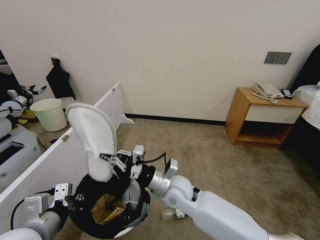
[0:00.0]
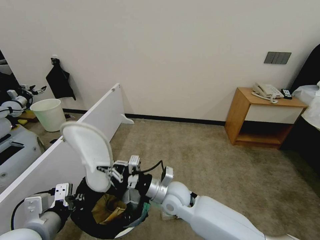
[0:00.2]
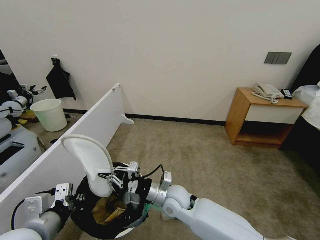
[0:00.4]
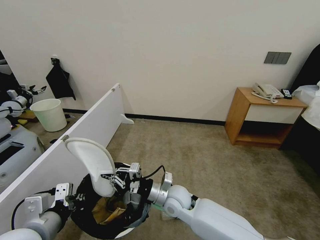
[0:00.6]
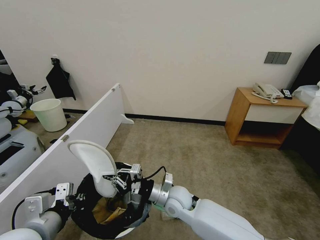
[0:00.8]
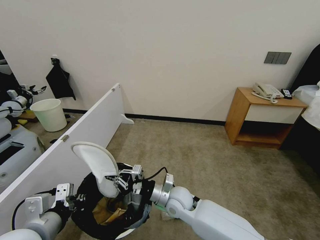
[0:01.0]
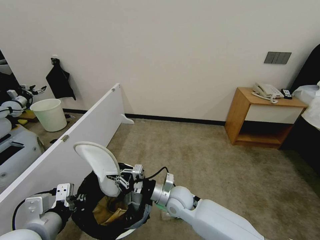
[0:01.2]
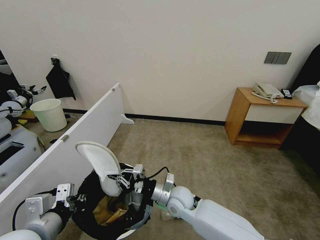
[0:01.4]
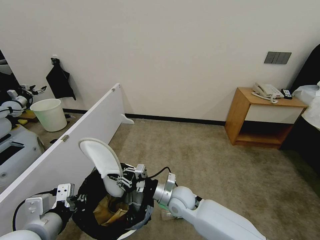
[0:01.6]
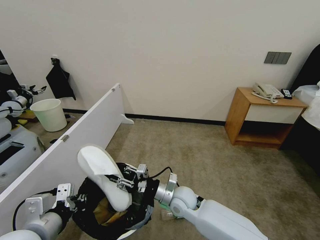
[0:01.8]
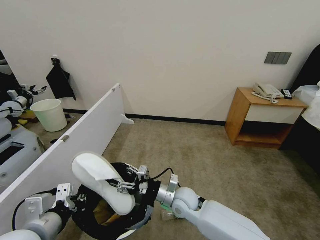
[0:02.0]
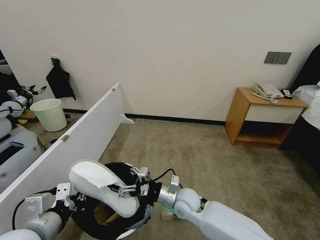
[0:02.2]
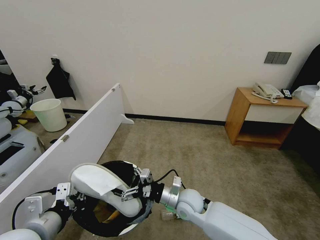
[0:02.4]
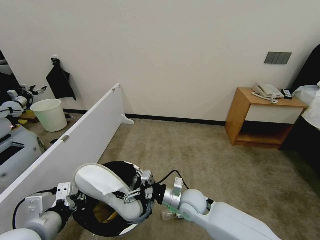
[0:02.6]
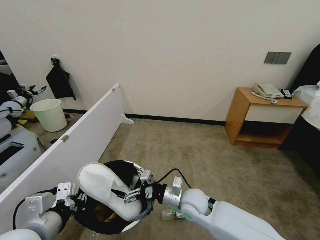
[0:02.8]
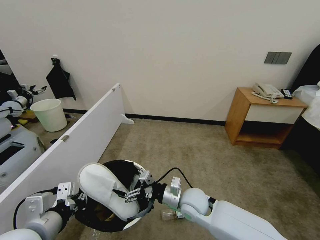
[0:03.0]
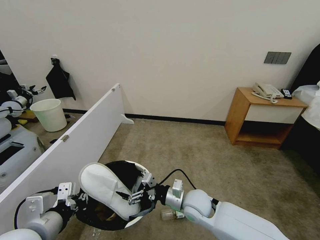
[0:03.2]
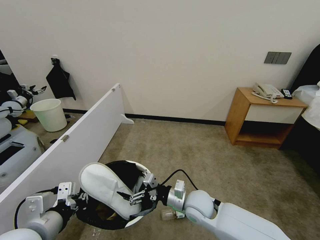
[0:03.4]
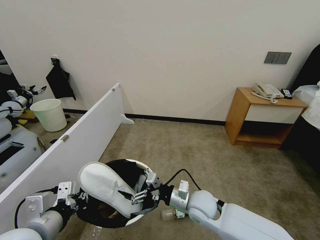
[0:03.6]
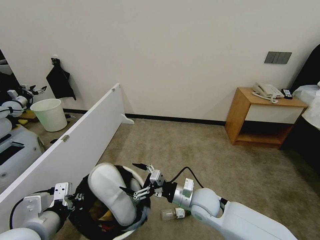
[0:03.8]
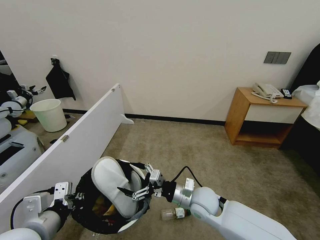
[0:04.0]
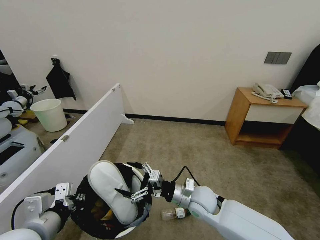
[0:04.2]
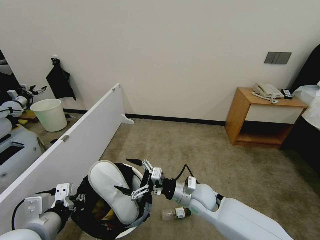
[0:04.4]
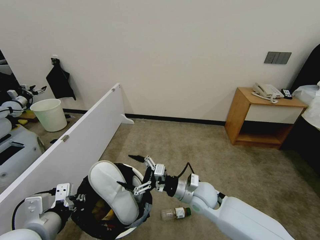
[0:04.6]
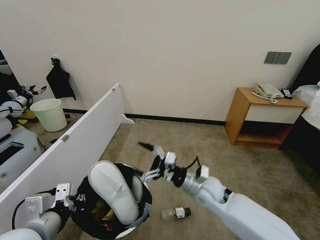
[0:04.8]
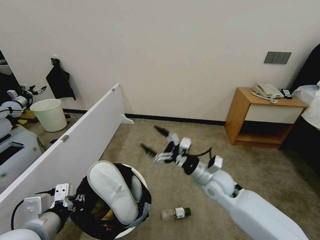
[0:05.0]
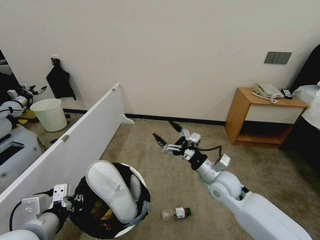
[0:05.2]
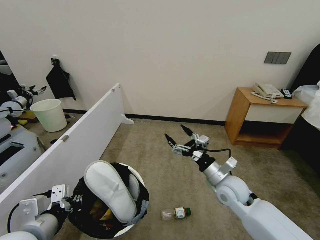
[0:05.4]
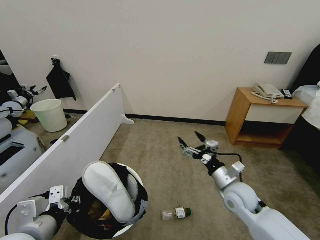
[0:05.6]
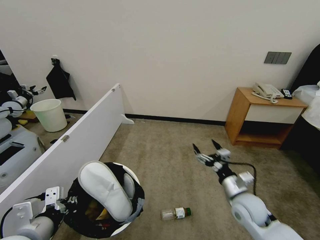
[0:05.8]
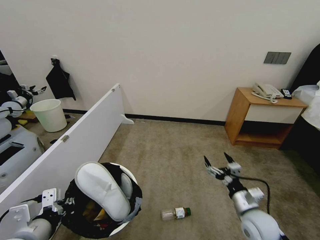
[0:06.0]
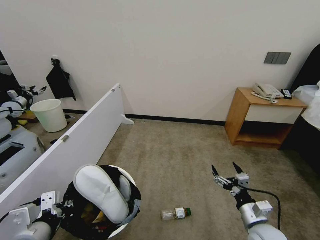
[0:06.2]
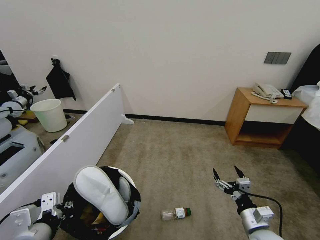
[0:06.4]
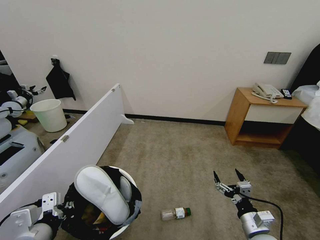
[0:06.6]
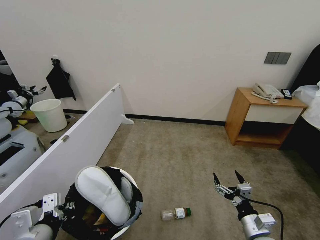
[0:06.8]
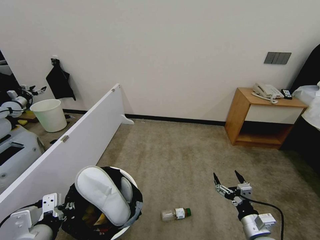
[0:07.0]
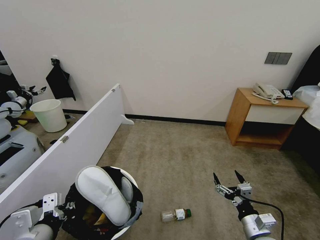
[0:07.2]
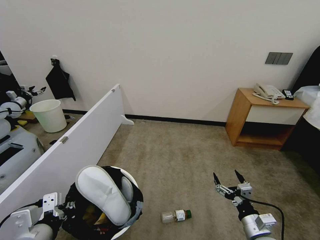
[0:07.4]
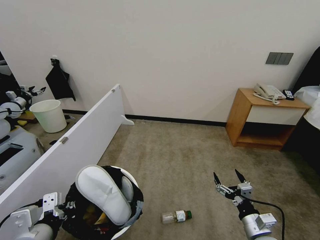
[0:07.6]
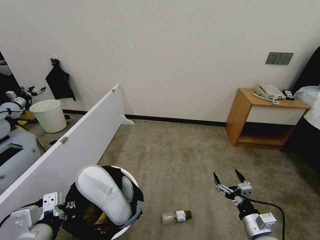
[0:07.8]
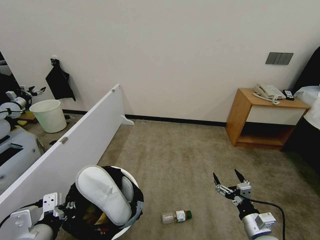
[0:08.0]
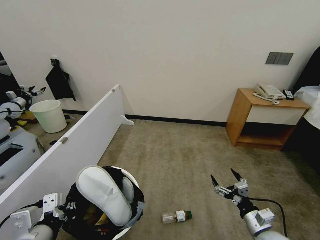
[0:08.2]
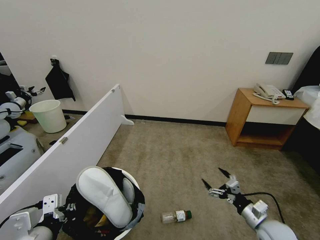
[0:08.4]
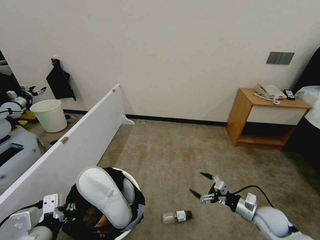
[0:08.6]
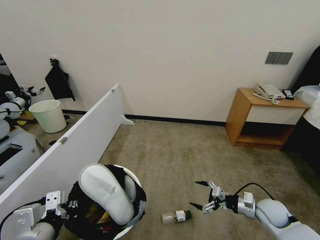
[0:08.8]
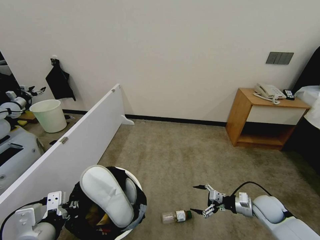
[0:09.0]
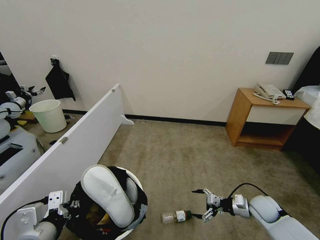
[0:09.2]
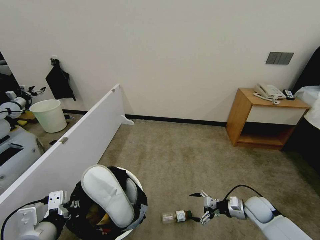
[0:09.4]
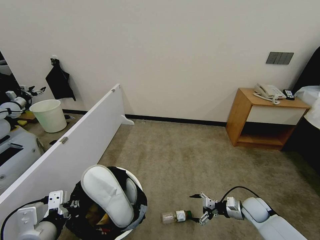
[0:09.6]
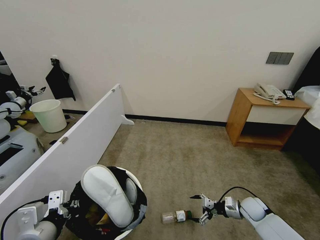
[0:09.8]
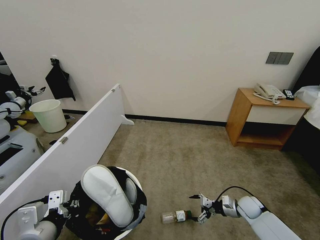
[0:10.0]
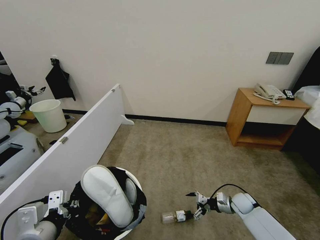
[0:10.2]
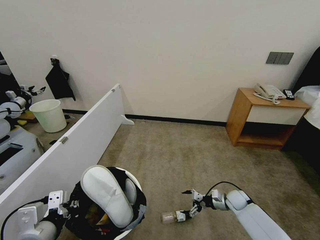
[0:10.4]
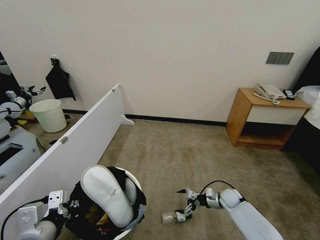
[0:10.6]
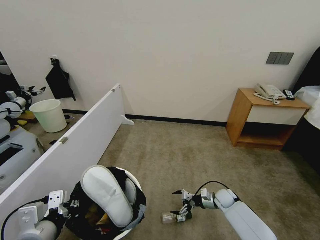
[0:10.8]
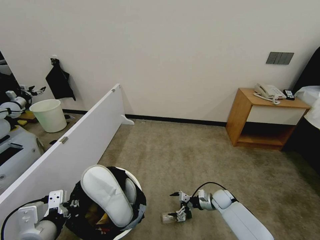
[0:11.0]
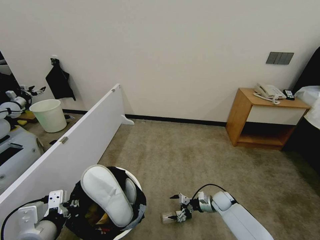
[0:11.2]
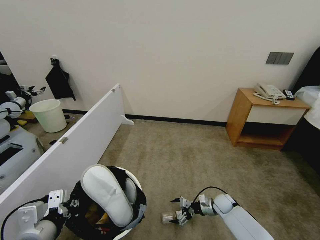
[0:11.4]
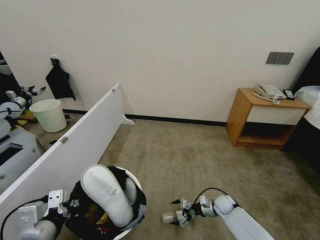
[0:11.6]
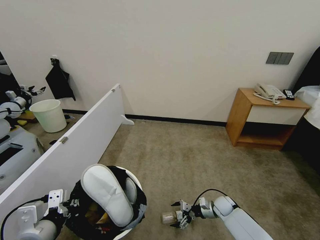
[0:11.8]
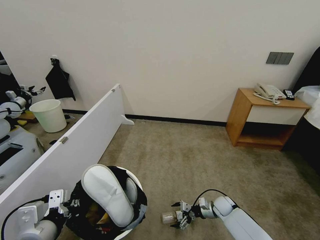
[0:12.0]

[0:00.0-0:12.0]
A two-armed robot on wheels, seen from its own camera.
Task of the whole recording: Pick up the trash bin, then pick up the garbage from the floor and place it into the trash bin.
0:00.0 to 0:01.6: The right gripper heads downward, covering about 10 cm.
0:01.6 to 0:03.0: The right gripper opens up.
0:04.4 to 0:06.0: The right gripper is displaced to the right and backward by approximately 20 cm.
0:06.0 to 0:07.6: The right gripper moves backward, roughly 5 cm.
0:07.6 to 0:09.0: The right gripper moves forward and to the right, roughly 15 cm.
0:09.0 to 0:10.4: The right gripper is displaced downward and forward by some 10 cm.
0:10.4 to 0:12.0: The right gripper heads to the left, covering some 5 cm.

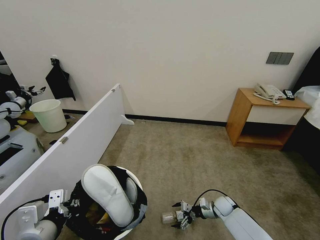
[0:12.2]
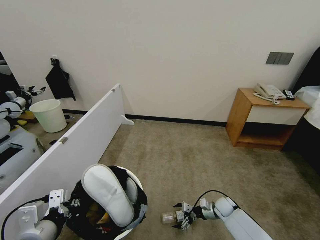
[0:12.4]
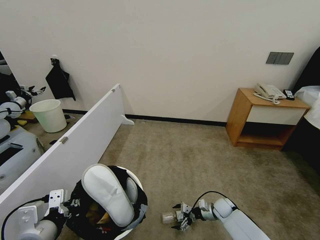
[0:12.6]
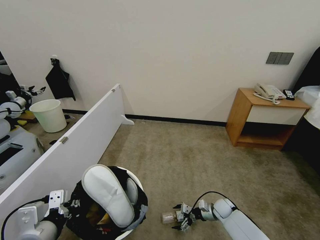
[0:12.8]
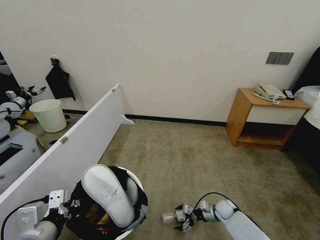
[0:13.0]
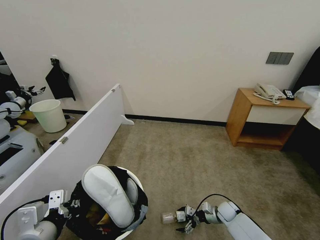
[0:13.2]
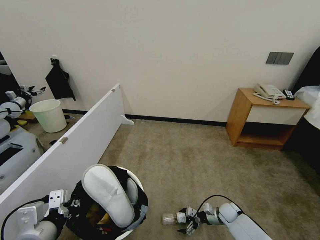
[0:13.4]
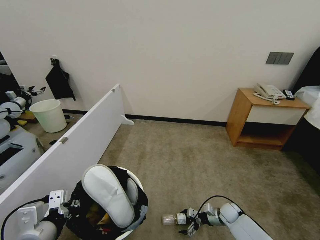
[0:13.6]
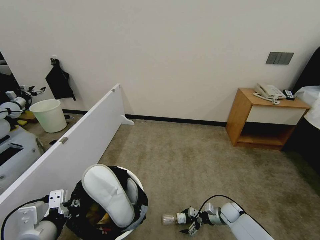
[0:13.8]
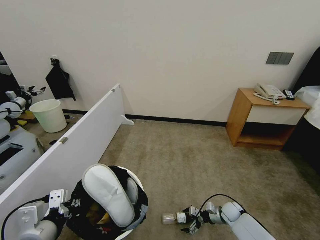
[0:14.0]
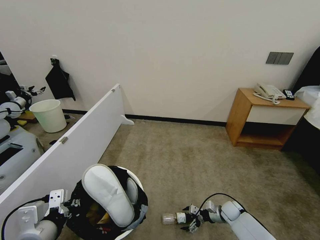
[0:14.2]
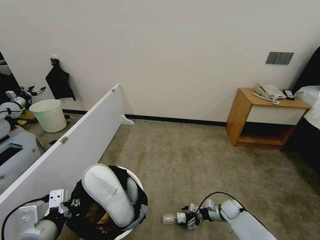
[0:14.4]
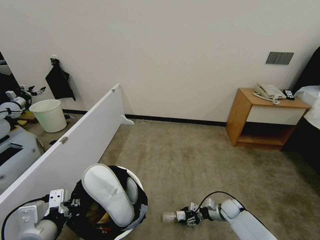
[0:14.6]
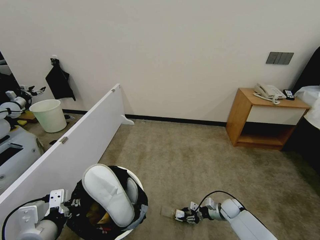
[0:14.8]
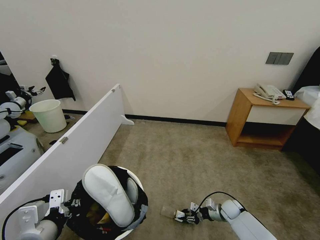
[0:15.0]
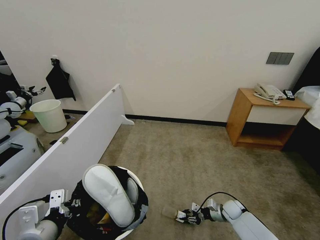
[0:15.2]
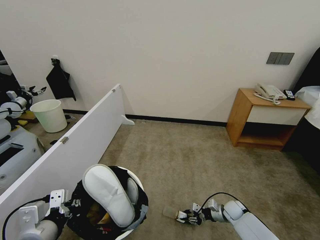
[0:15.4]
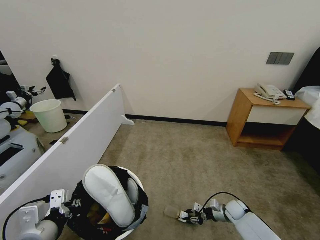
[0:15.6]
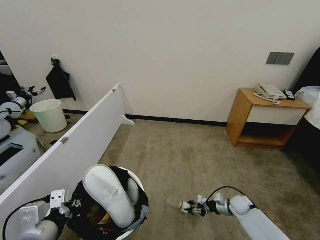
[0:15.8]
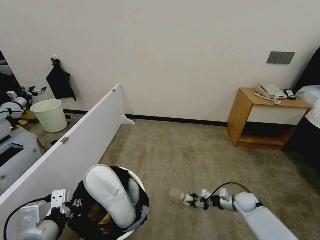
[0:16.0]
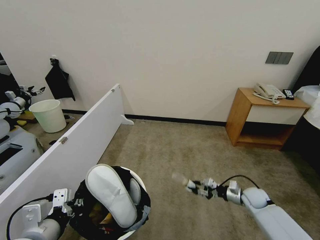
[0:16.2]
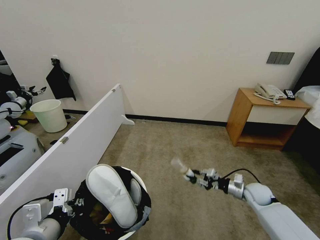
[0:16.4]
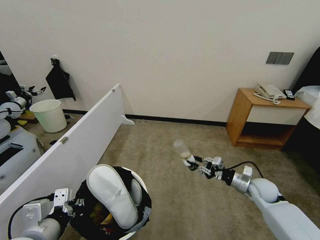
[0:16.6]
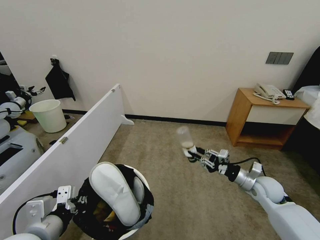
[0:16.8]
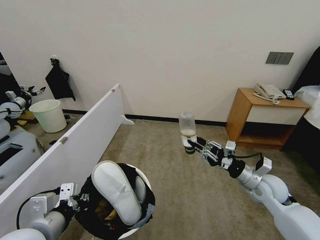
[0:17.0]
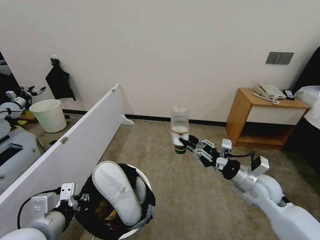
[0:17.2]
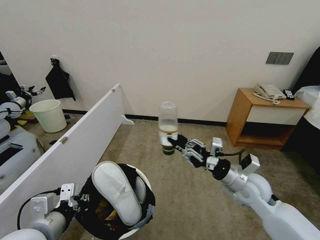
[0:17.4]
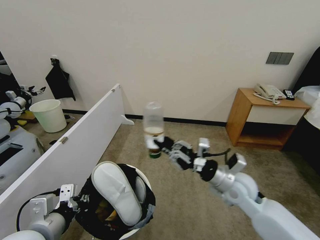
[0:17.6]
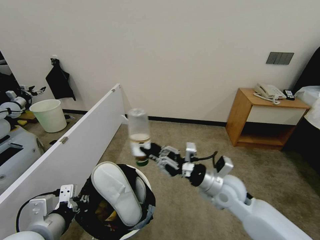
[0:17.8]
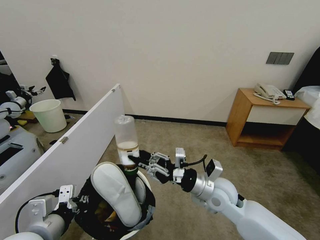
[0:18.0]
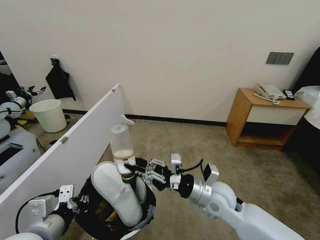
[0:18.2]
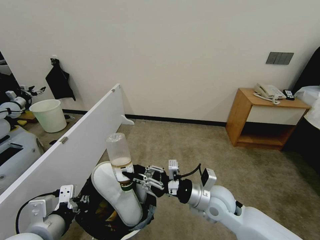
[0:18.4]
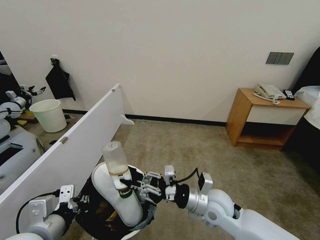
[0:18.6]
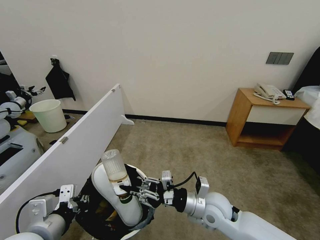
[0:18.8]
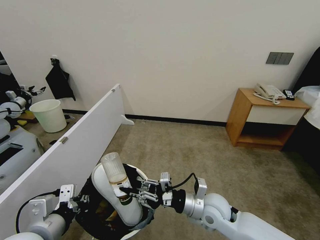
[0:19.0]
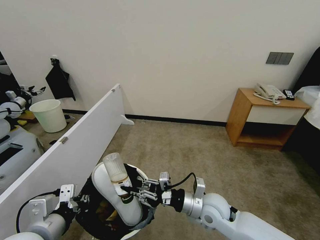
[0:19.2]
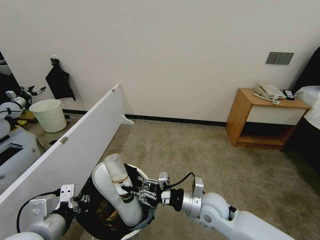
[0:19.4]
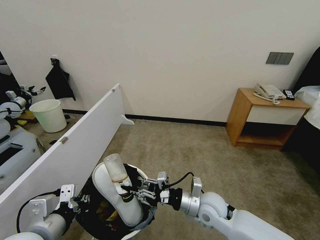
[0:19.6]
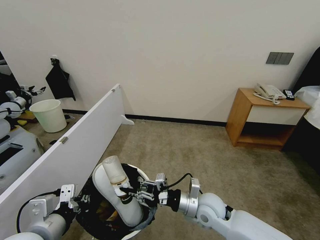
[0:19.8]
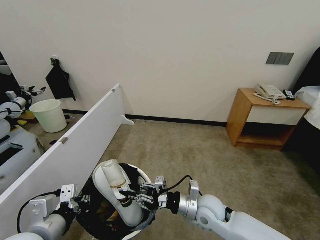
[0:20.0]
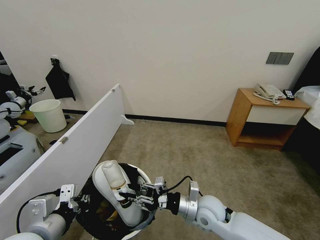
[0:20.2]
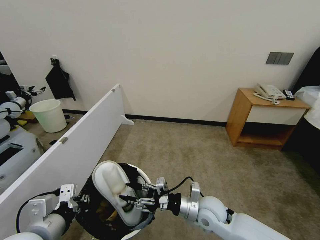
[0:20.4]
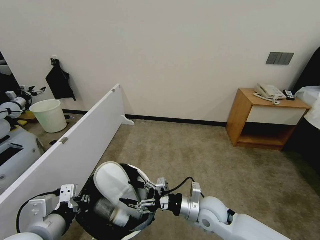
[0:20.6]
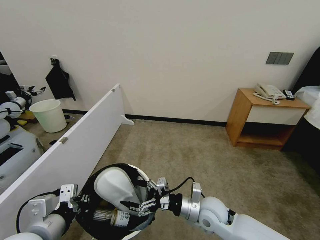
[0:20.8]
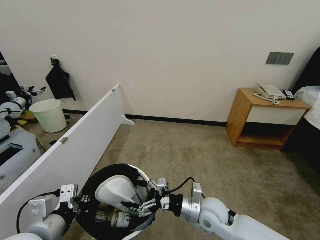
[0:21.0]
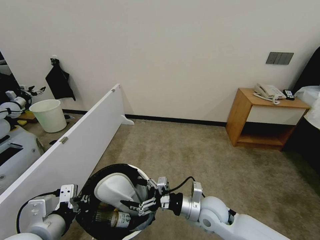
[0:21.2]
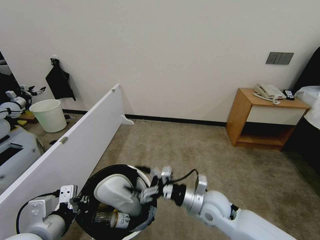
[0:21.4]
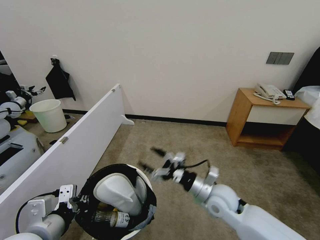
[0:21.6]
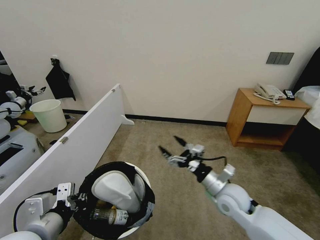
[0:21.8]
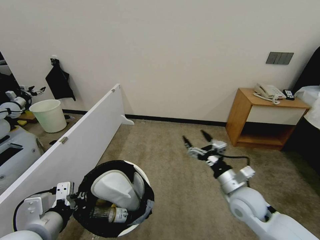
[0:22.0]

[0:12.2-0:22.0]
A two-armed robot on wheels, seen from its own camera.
Task of the whole recording: Pick up the trash bin, then pick up the garbage from the floor and place it into the trash bin.
0:12.2 to 0:13.6: The grippers move only a little.
0:13.6 to 0:15.0: The right gripper closes.
0:15.0 to 0:16.4: The right gripper travels upward and to the right by approximately 10 cm.
0:16.4 to 0:17.8: The right gripper shifts approximately 30 cm upward and to the left.
0:17.8 to 0:19.2: The right gripper travels downward by about 5 cm.
0:19.2 to 0:20.6: The right gripper opens up.
0:20.6 to 0:22.0: The right gripper shifts some 10 cm to the right.
